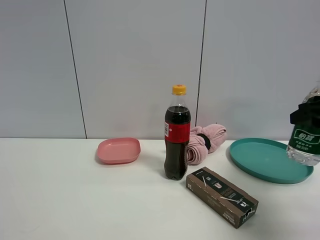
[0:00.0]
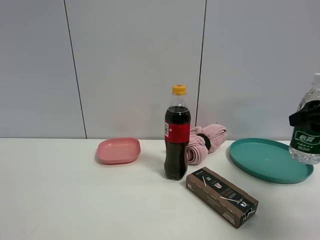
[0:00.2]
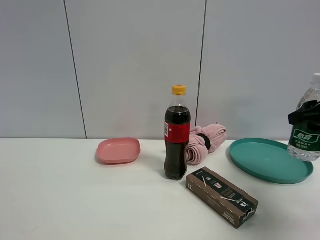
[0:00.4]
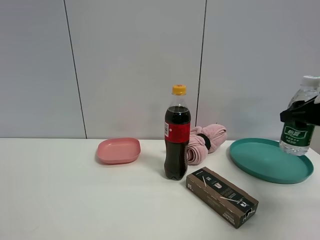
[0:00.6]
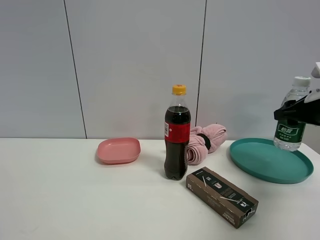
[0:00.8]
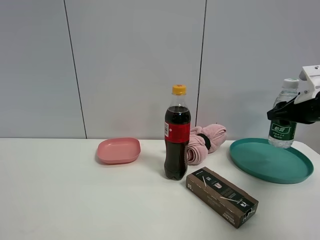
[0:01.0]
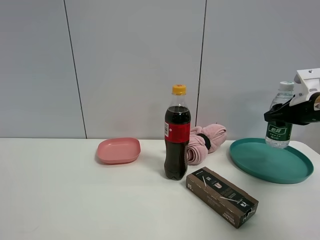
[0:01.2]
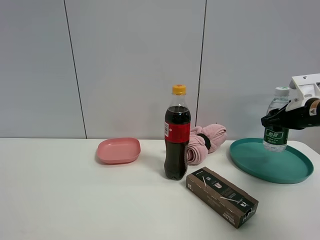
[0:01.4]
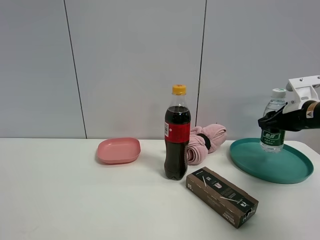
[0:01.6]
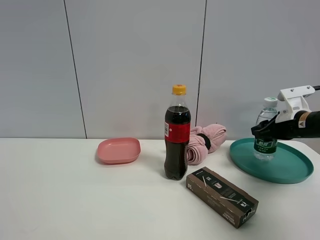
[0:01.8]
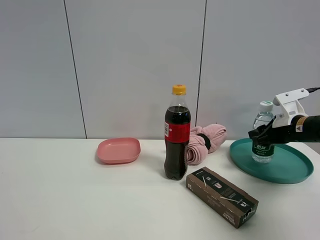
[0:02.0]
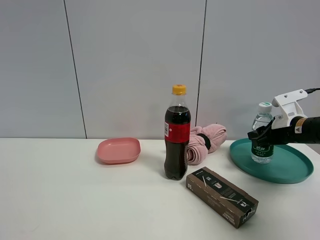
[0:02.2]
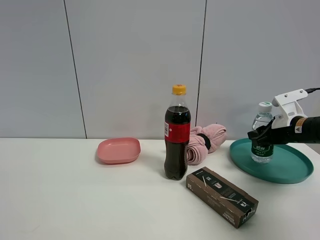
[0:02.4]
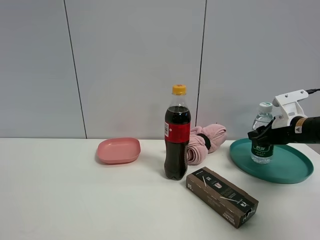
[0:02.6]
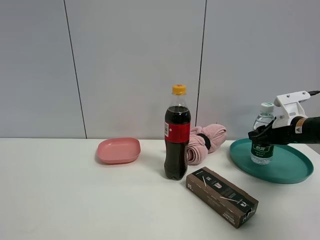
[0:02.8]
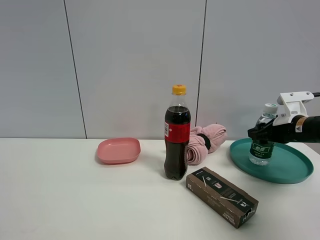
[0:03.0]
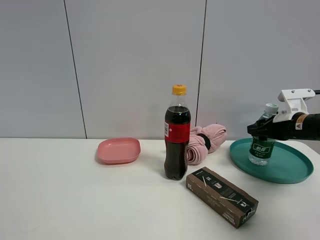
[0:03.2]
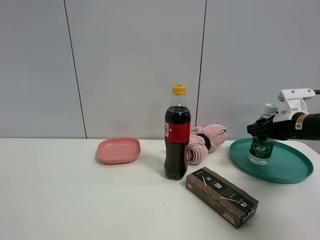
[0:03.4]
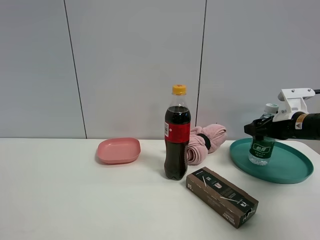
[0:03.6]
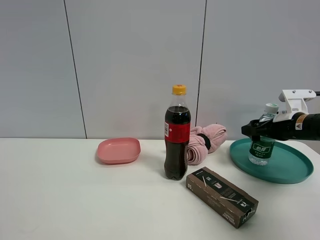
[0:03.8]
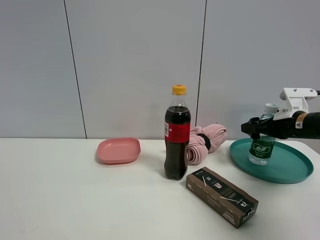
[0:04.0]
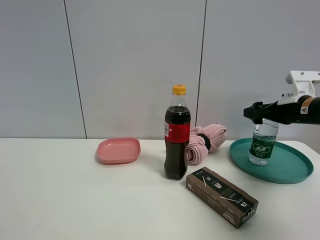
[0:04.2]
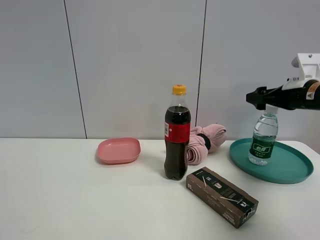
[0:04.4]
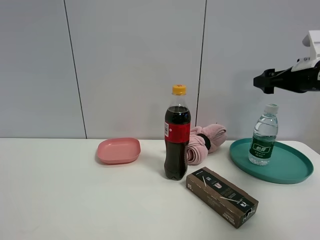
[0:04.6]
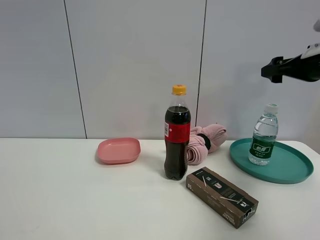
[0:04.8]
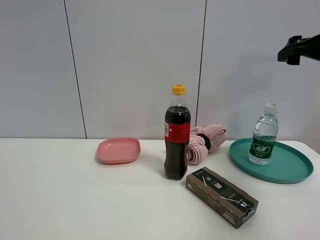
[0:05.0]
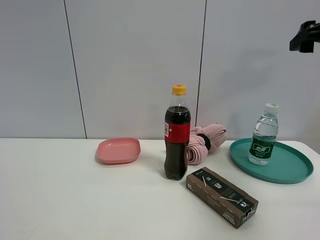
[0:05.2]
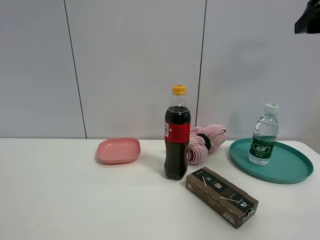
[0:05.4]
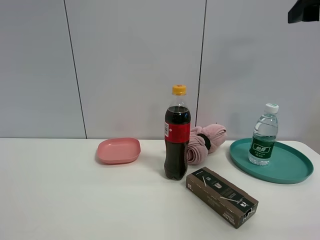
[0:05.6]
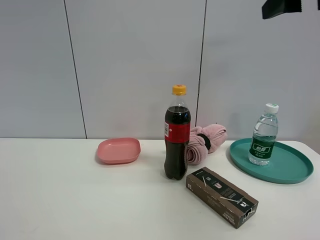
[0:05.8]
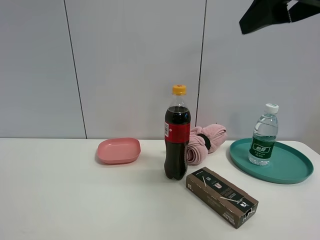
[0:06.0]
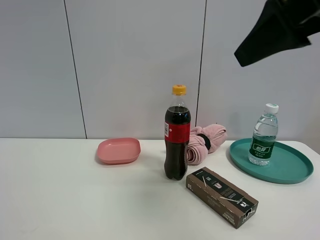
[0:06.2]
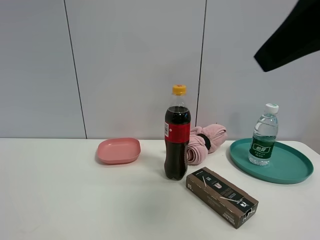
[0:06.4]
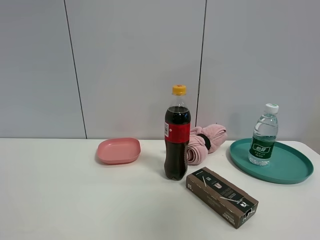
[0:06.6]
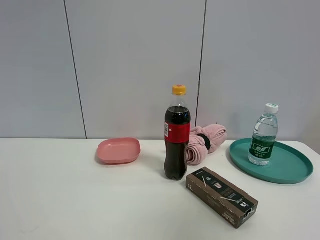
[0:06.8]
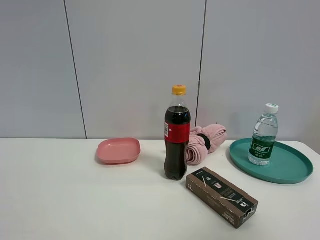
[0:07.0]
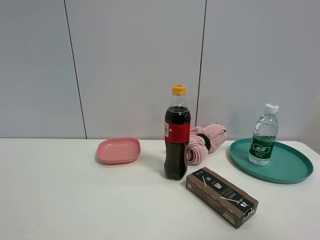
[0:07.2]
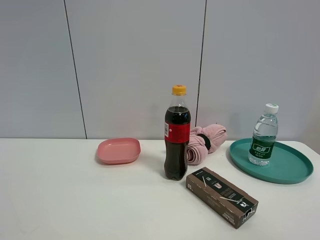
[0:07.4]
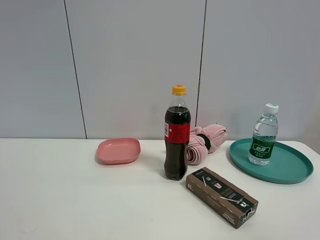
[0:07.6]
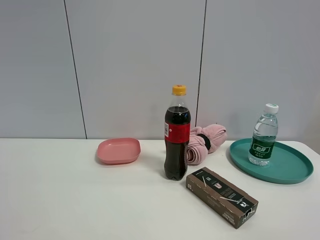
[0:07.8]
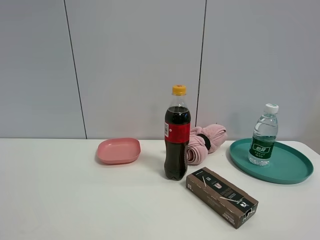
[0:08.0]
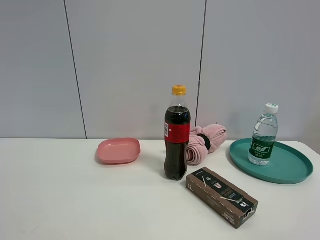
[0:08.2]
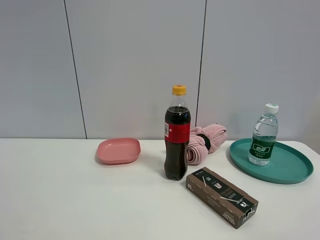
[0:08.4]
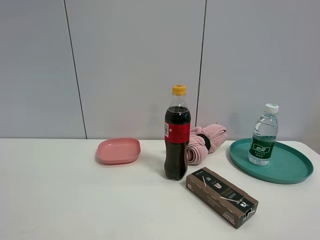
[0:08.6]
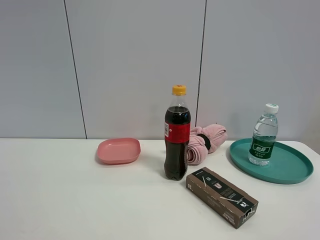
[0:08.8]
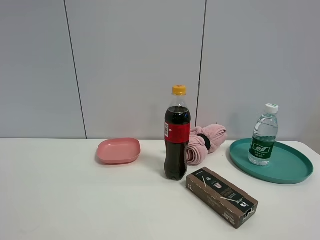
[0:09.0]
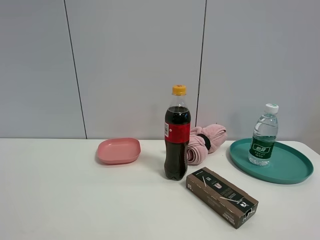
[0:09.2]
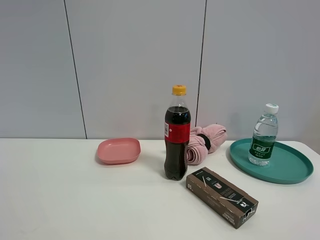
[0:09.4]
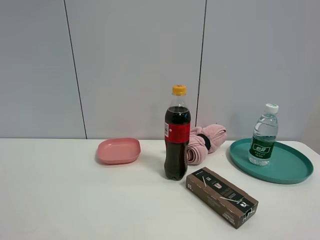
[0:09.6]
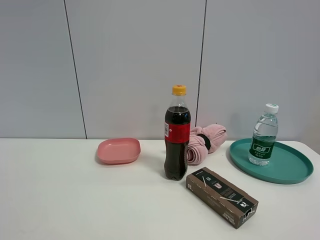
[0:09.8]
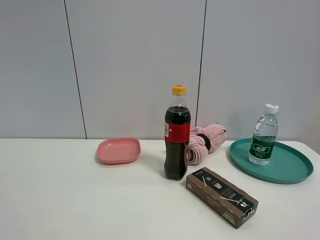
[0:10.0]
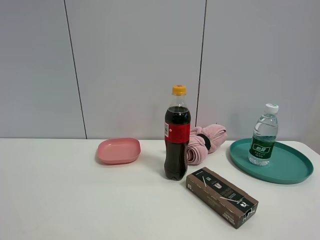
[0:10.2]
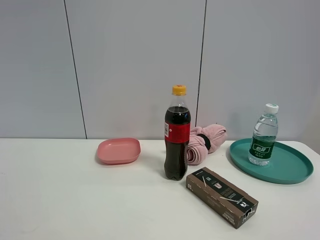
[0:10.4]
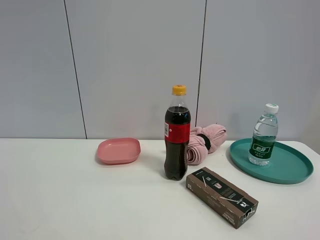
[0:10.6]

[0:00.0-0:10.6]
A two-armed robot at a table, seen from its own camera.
Task of the whole recording: the gripper move the object.
Step, 0:00.0 to 0:03.8: Place the YiBao mineral water into the green plate with the right gripper.
0:00.0 to 0:01.6: The right gripper goes roughly 15 cm forward and downward.
0:01.6 to 0:03.0: There are only small adjustments of the grippers.
0:03.0 to 0:04.6: The right gripper heads upward, covering some 10 cm, and opens its fingers.
0:04.6 to 0:06.0: The right gripper goes approximately 25 cm backward, upward and to the left.
0:06.0 to 0:07.6: The right gripper heads backward and to the right, covering approximately 25 cm.
0:09.0 to 0:10.6: The two grippers keep their place.

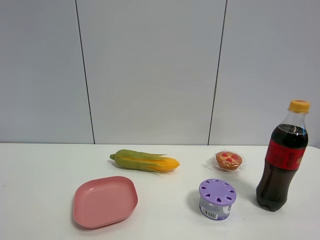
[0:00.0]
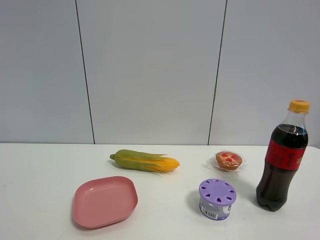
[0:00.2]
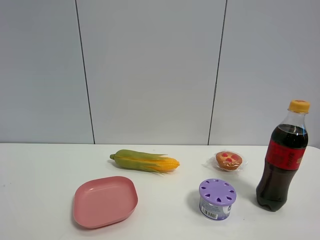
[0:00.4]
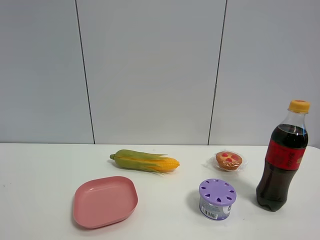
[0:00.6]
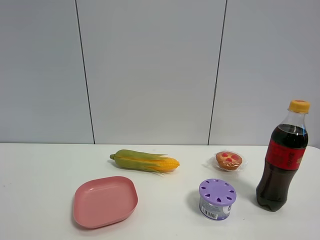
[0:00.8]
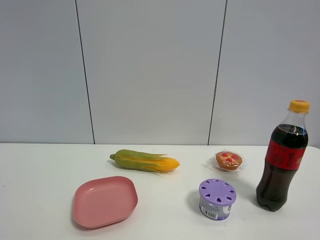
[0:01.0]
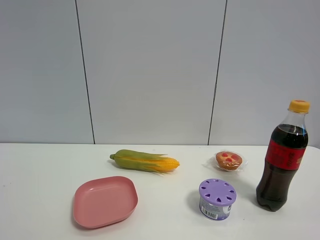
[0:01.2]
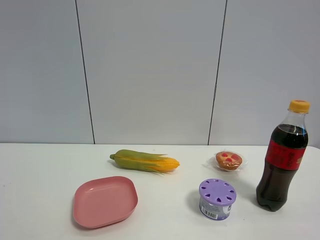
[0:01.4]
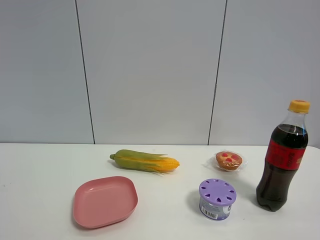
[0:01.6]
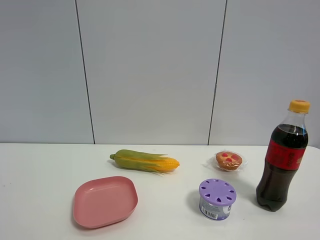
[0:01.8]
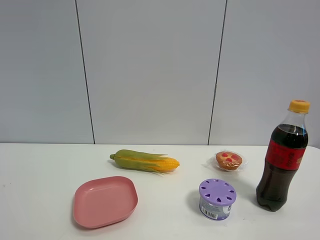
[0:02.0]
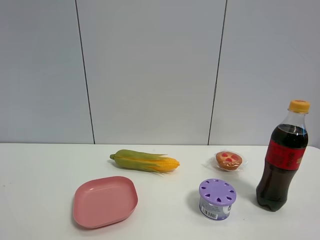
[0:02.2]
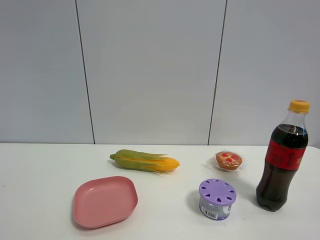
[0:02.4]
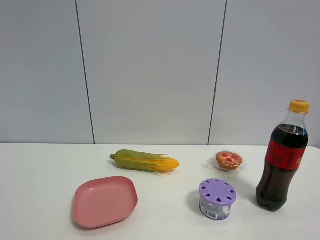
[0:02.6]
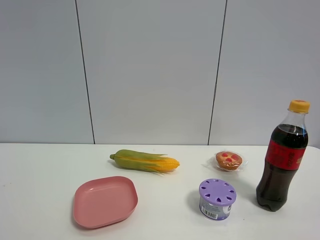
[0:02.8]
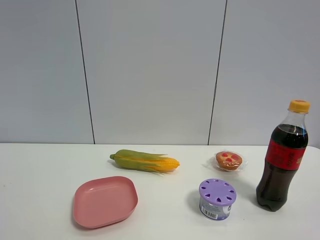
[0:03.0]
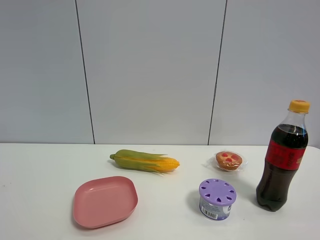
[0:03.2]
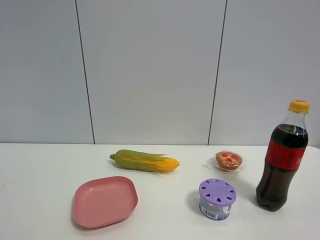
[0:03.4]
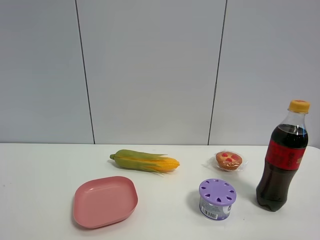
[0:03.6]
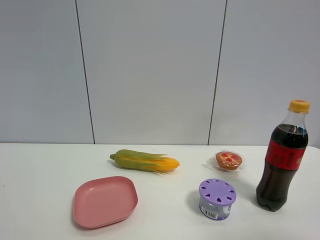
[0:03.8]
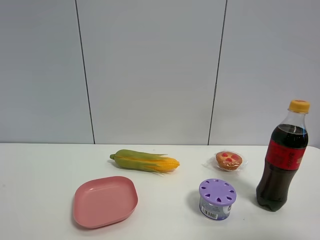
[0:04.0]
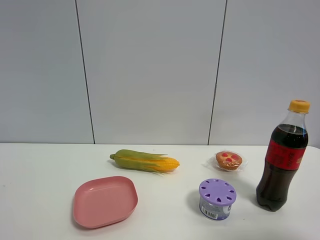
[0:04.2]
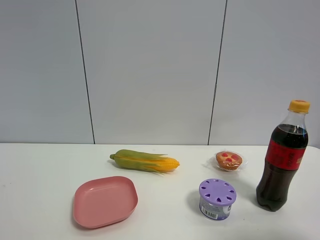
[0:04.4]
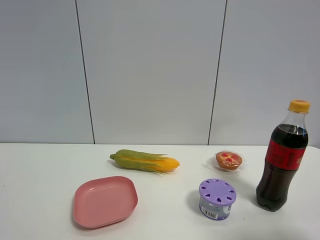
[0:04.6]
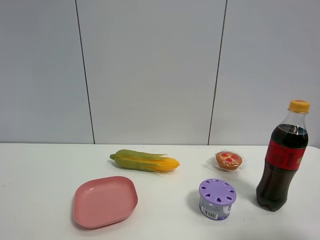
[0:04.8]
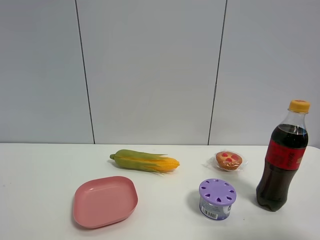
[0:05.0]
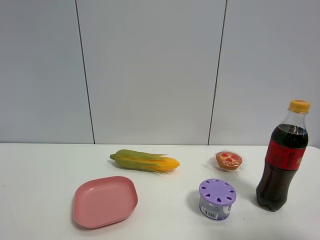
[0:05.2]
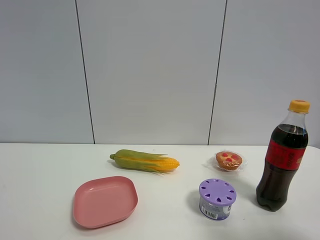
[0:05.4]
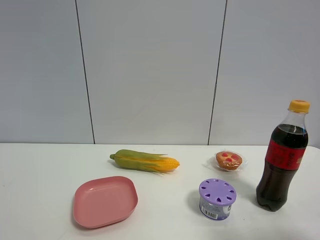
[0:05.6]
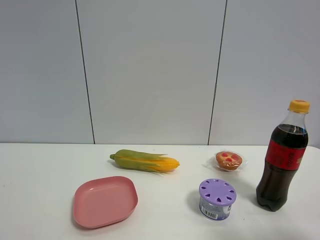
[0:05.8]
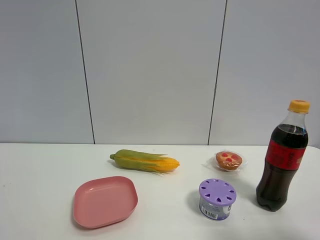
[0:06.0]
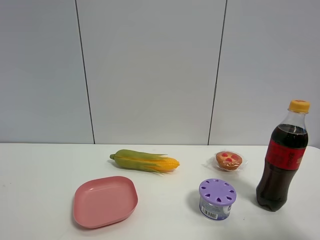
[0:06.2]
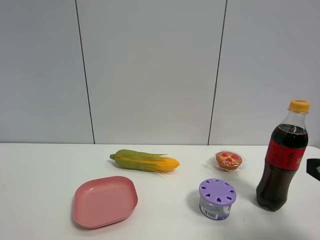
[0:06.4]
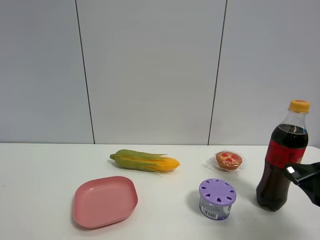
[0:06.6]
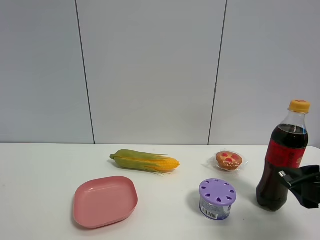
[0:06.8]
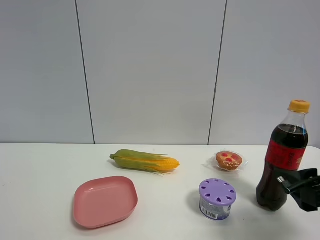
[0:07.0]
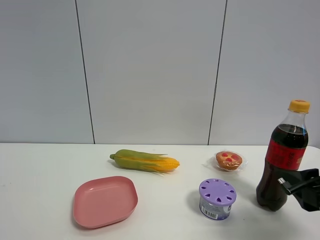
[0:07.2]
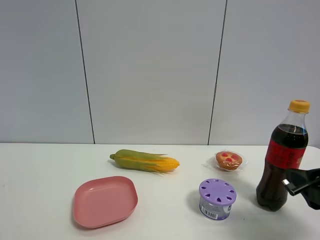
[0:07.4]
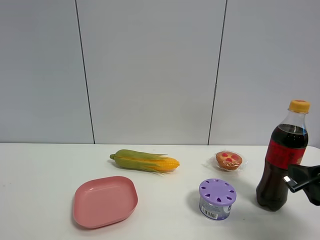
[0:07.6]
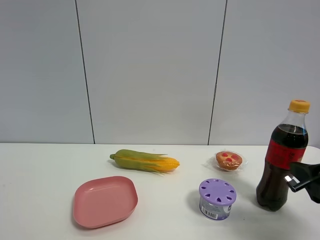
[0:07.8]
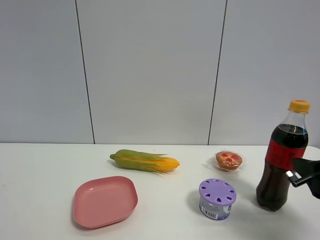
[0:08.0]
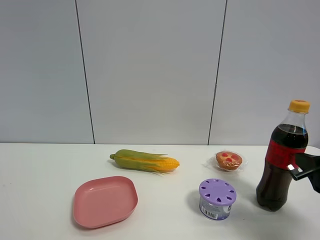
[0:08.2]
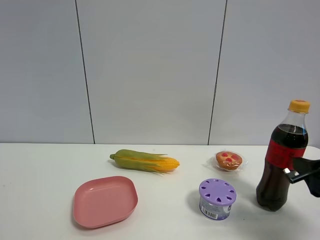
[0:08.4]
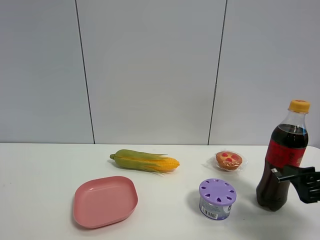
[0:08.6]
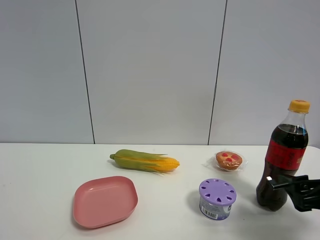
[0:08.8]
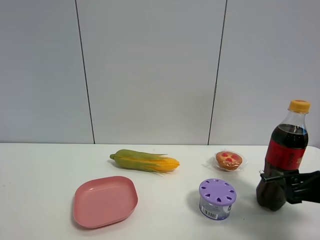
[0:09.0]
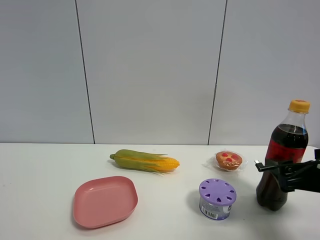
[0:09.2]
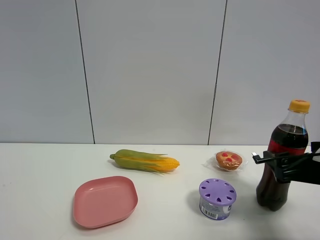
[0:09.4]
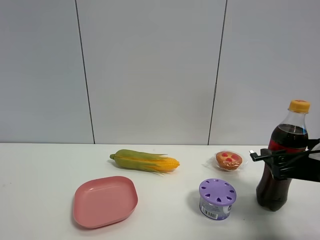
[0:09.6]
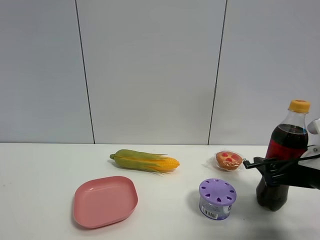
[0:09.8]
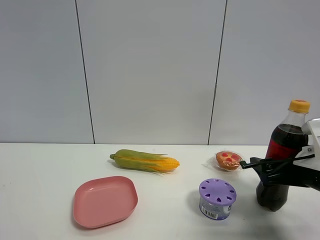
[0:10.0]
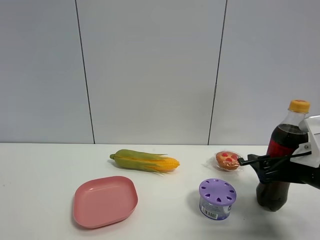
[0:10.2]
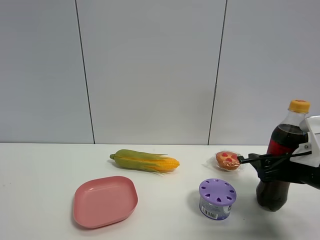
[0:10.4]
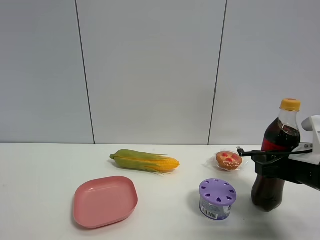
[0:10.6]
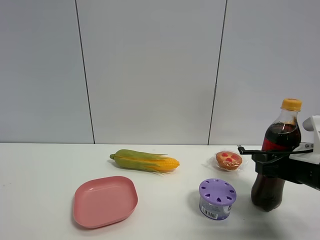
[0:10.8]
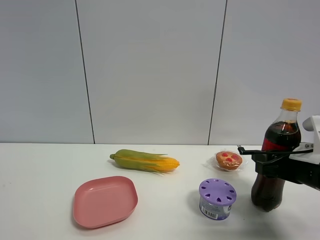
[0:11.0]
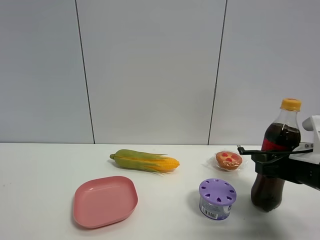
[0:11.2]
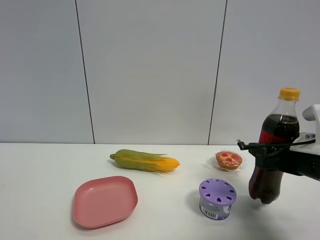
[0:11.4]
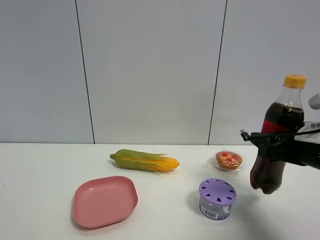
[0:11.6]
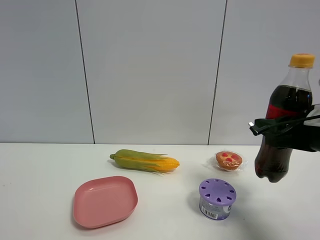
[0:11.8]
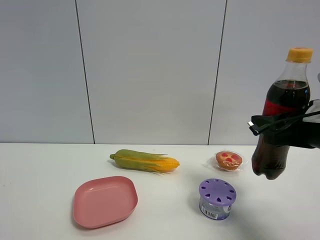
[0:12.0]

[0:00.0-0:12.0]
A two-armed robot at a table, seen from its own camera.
Task of the whole recording: the gripper move the object.
Step, 0:00.0 to 0:10.6: Grasp the coke with the right gripper.
0:00.0 to 0:03.0: The two grippers keep their place.
0:03.0 to 0:04.4: The right gripper moves forward, some 10 cm.
0:06.0 to 0:07.6: The right gripper is displaced forward by roughly 10 cm.
0:07.6 to 0:09.0: The right gripper changes place by approximately 5 cm.
0:09.0 to 0:10.4: The right gripper shifts approximately 5 cm forward, and closes its fingers.
0:10.4 to 0:12.0: The right gripper travels upward by approximately 10 cm, and closes its fingers.
